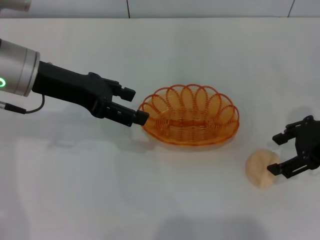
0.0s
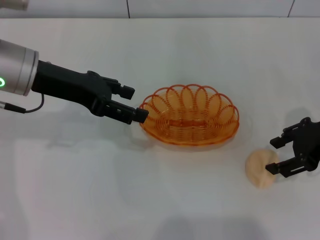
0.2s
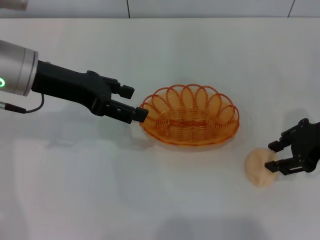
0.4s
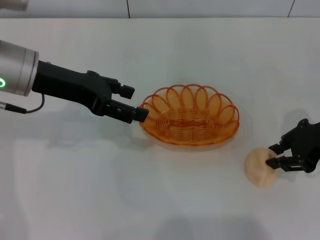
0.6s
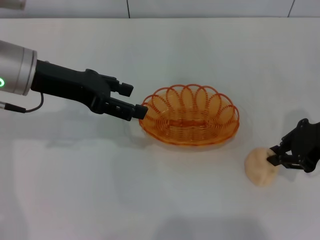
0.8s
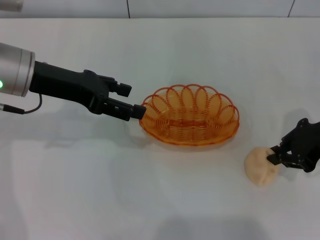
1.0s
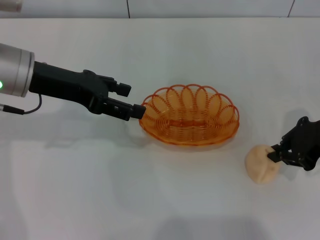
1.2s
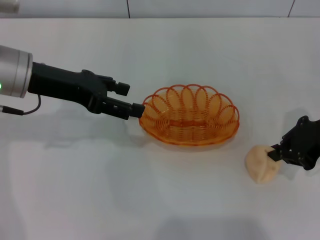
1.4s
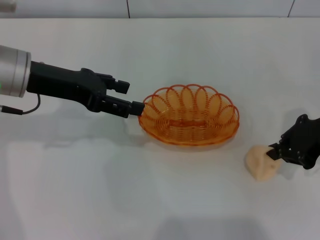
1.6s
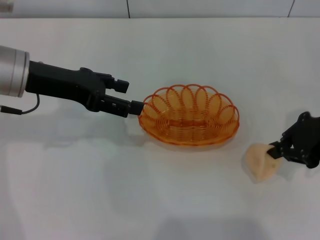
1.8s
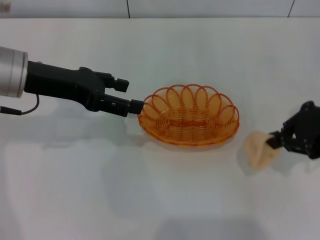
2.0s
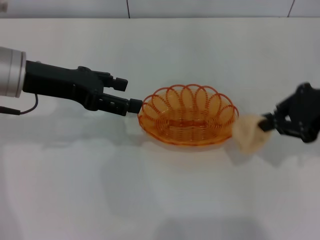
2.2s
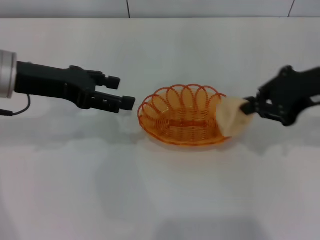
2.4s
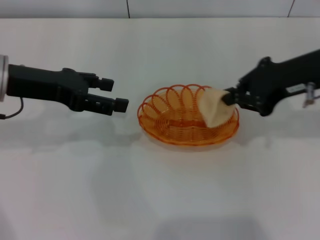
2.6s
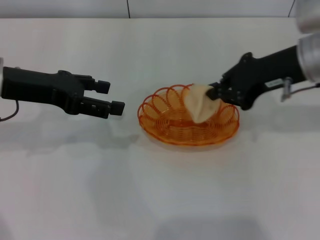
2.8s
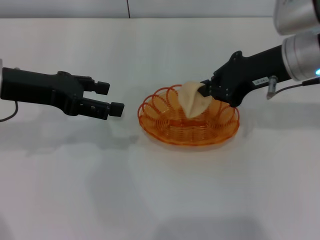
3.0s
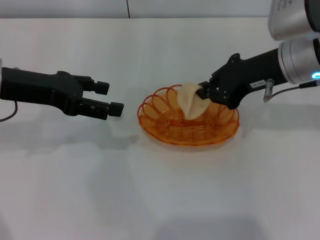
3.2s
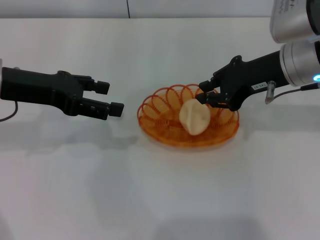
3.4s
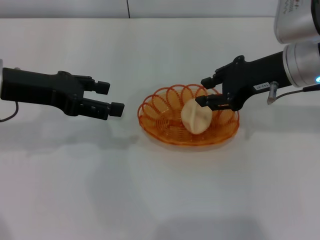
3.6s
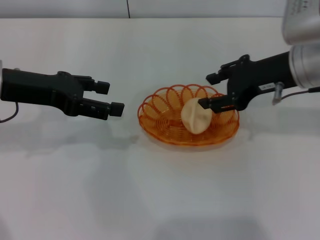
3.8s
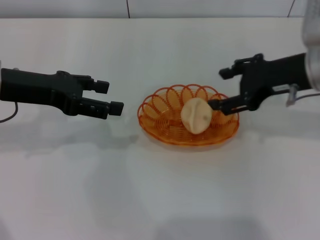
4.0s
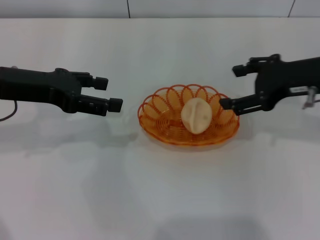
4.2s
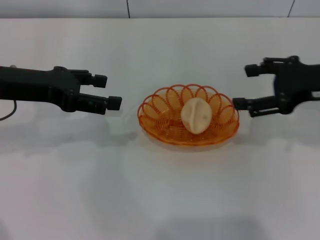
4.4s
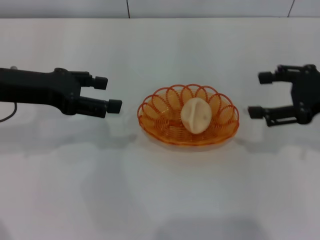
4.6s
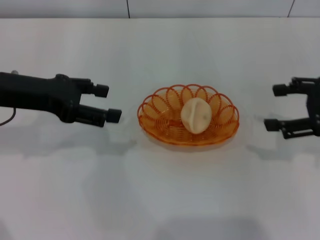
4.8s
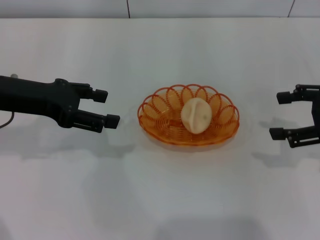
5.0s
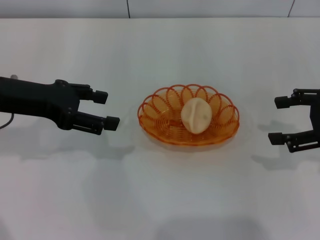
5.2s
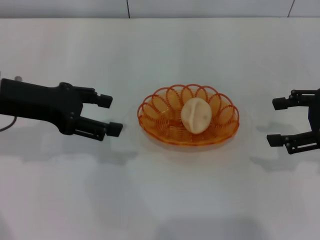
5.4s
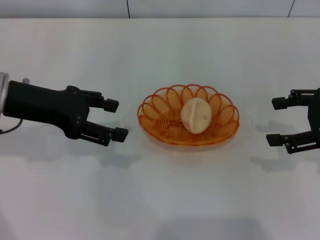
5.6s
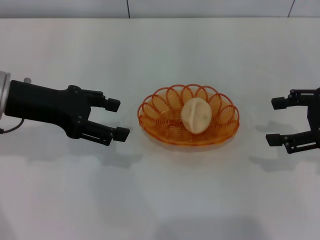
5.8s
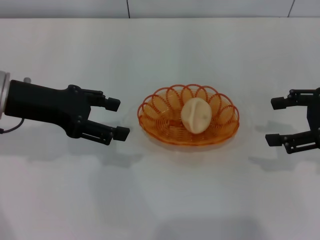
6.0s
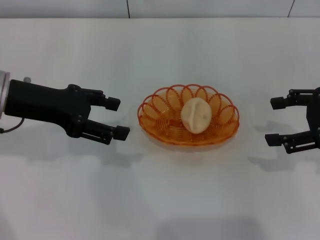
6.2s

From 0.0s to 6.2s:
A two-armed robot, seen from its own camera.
Step, from 2.2s to 3.6s: Place the egg yolk pastry into the basket with the right gripper.
From 0.0s to 1.6s: The right gripper closes.
From 1.6s to 3.2s: The right gripper is displaced to the left by some 10 cm.
From 3.2s to 4.6s: The right gripper moves to the right and backward, approximately 10 cm, and opens.
From 4.6s to 6.2s: The grippers stay close to where they were, moving slightly.
